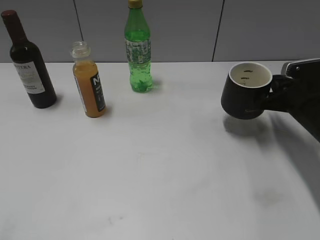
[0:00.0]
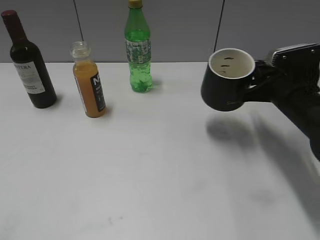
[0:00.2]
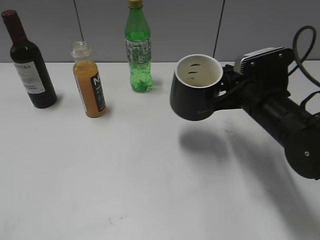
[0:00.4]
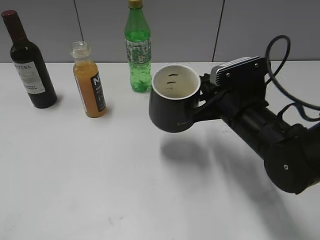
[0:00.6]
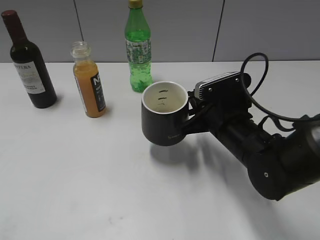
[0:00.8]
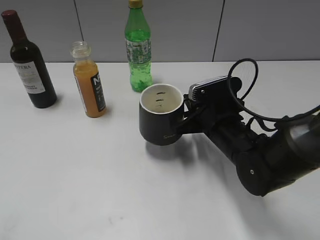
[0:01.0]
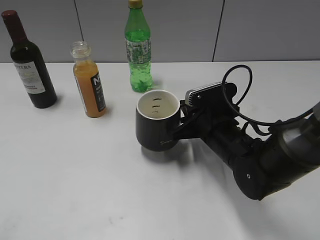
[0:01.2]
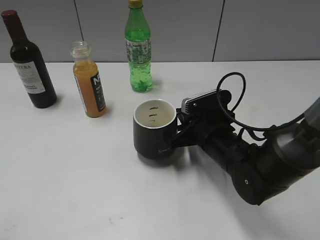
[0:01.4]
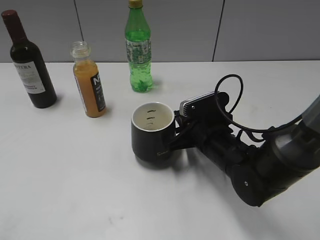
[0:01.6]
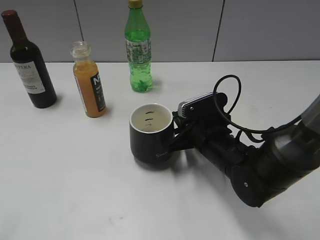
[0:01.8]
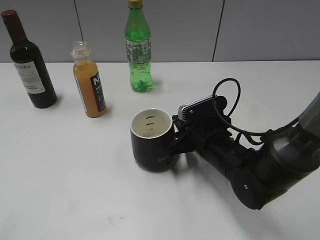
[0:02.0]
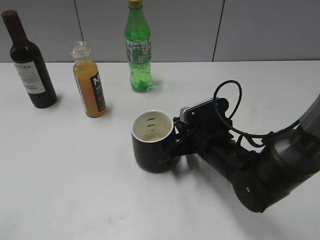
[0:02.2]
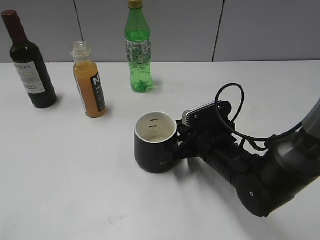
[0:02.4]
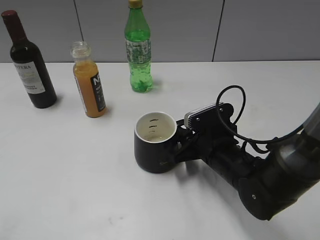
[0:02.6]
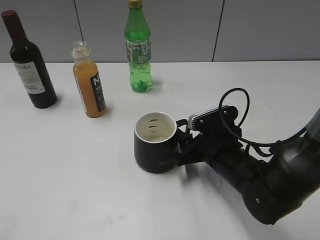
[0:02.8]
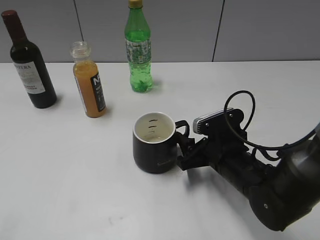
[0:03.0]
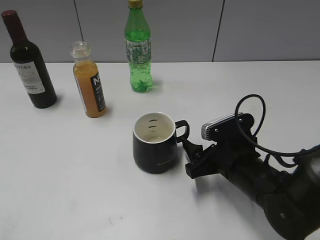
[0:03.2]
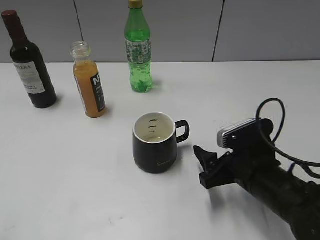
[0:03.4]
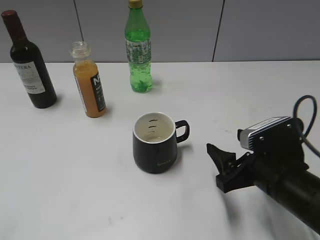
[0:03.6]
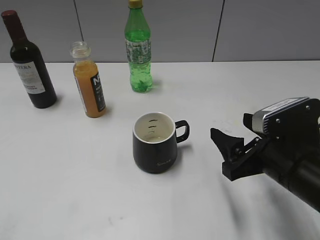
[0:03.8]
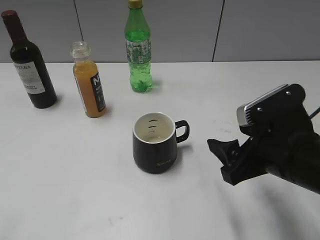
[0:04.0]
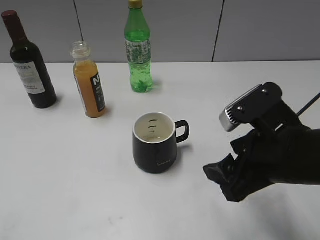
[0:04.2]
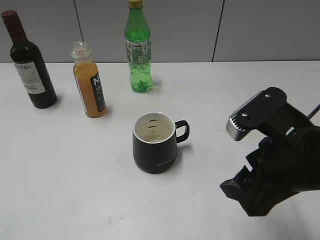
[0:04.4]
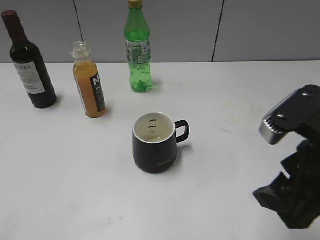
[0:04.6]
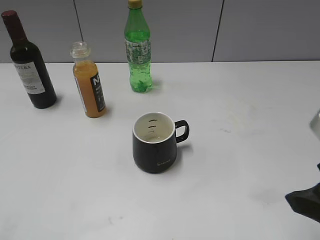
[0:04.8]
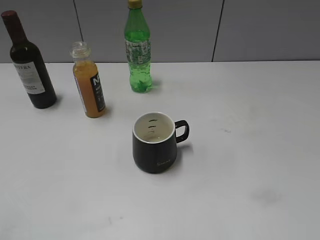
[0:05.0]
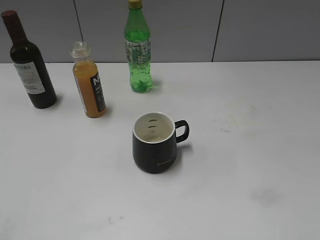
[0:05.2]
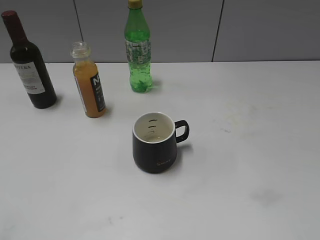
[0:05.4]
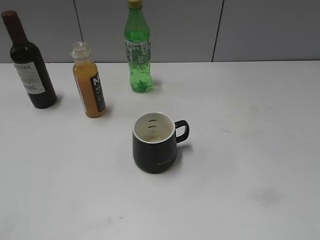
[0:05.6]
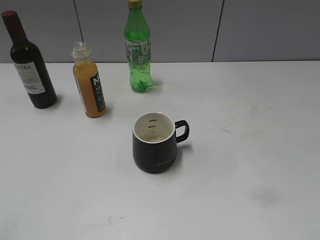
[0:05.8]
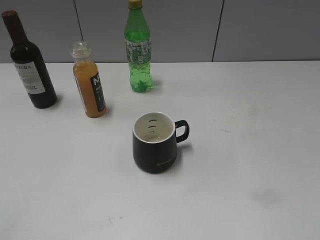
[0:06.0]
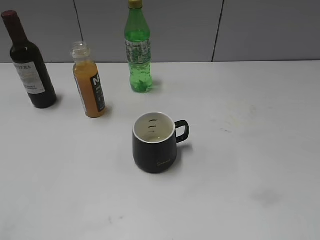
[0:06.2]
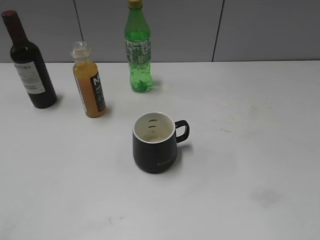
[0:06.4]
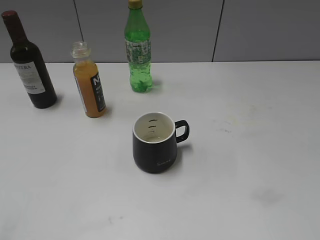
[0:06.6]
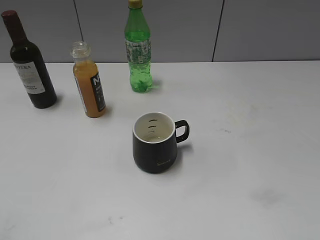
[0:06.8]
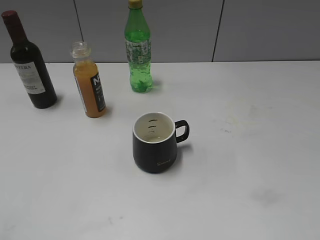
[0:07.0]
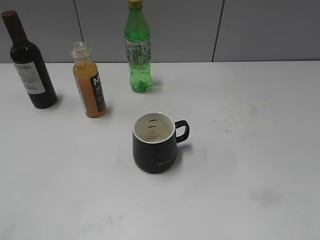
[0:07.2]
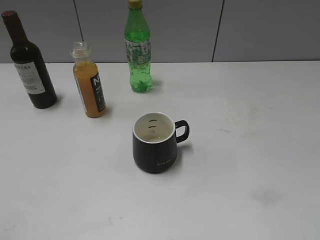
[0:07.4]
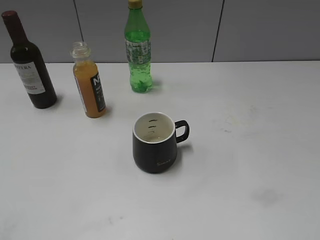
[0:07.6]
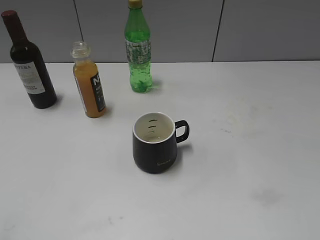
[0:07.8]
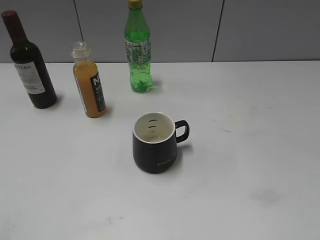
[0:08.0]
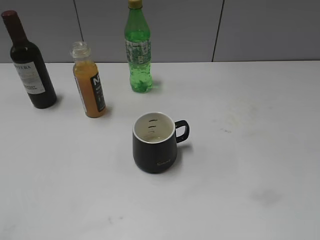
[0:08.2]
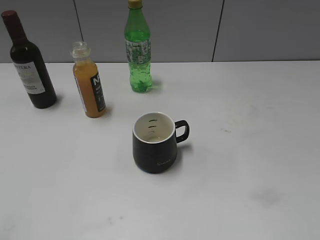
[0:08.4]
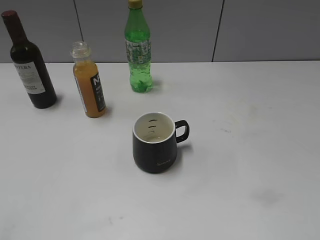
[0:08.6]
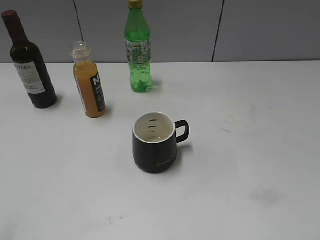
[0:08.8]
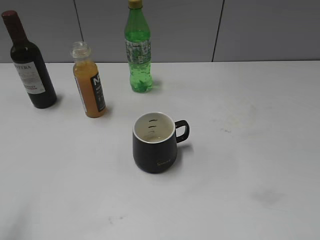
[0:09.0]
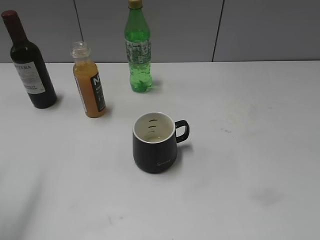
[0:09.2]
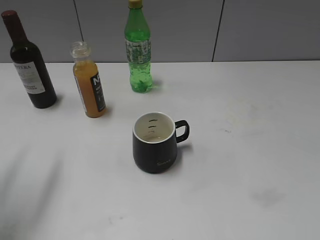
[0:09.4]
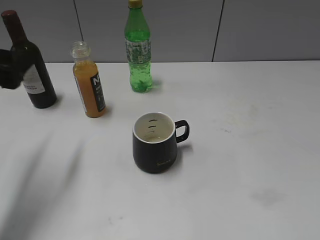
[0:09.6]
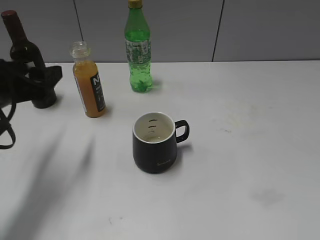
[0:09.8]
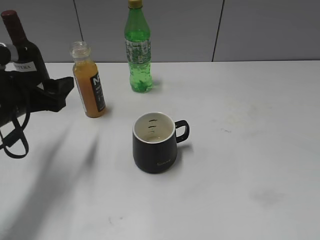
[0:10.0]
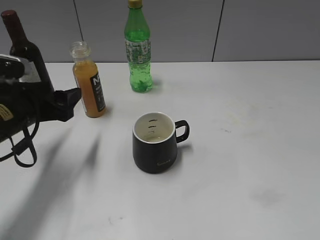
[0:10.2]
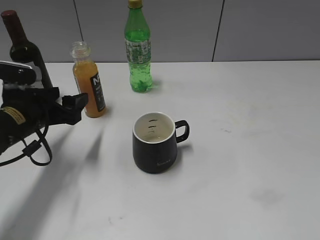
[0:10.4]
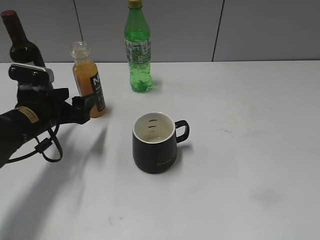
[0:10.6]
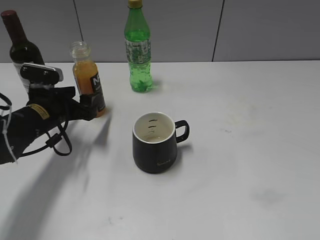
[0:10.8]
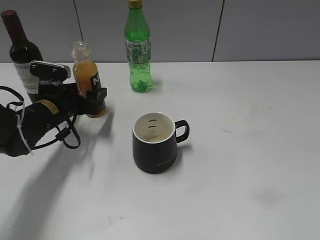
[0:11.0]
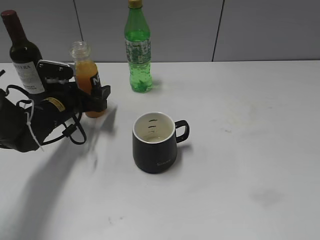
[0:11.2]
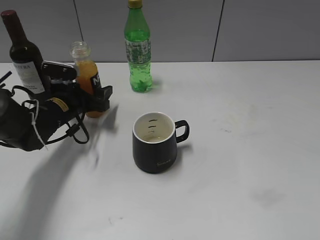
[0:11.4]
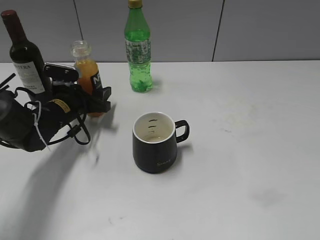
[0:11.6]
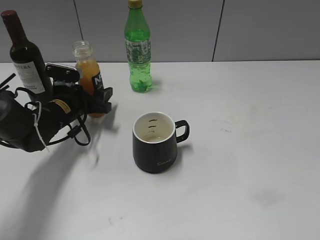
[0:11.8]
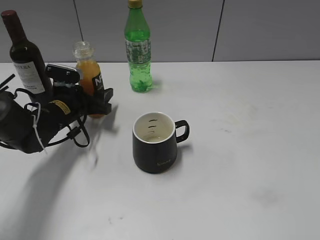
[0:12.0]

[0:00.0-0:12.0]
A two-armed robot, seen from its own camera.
Step, 0:00.0 to 0:03.0: Place the black cup in the center of view with right gripper.
0:00.0 to 0:01.6: The right gripper heads to the left, covering some 15 cm.
0:01.6 to 0:03.0: The right gripper opens up.
0:03.0 to 0:04.4: The right gripper shifts roughly 15 cm upward and backward.
0:04.4 to 0:06.0: The right gripper is displaced backward, to the right and upward by approximately 20 cm.
0:06.0 to 0:07.6: The two grippers keep their place.
0:09.0 to 0:10.4: The left gripper goes some 30 cm forward, downward and to the right.
0:10.4 to 0:12.0: The left gripper heads forward and downward, covering some 10 cm, and closes.

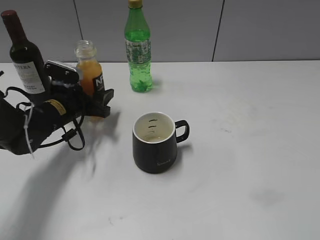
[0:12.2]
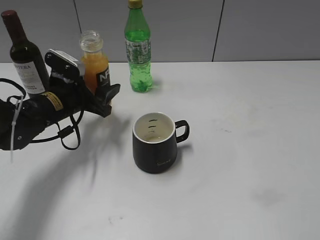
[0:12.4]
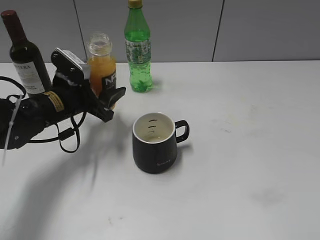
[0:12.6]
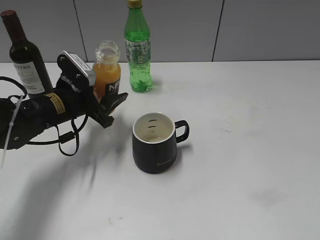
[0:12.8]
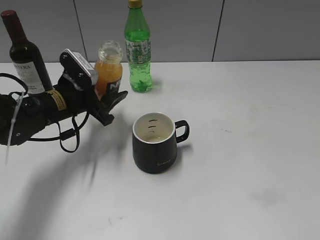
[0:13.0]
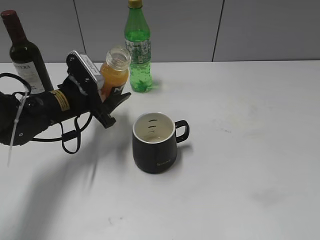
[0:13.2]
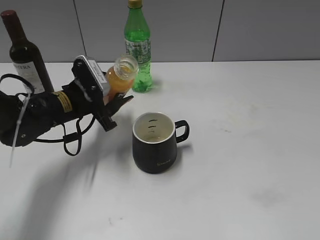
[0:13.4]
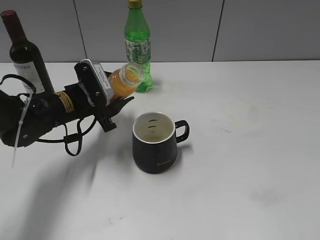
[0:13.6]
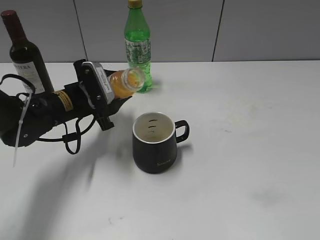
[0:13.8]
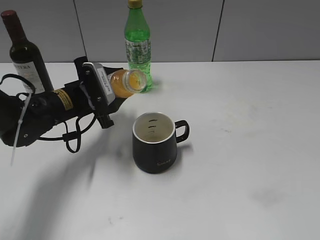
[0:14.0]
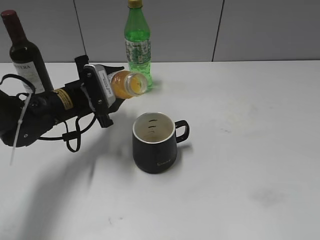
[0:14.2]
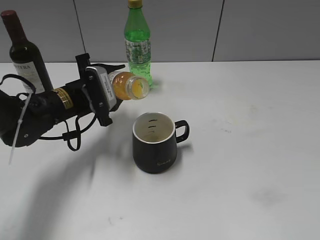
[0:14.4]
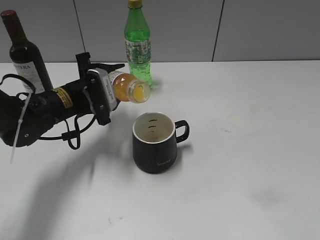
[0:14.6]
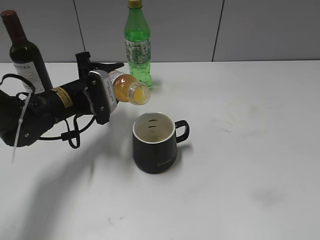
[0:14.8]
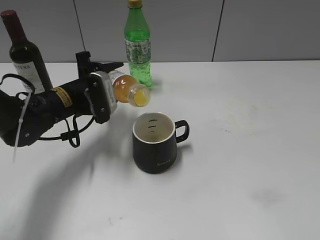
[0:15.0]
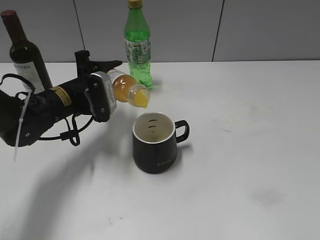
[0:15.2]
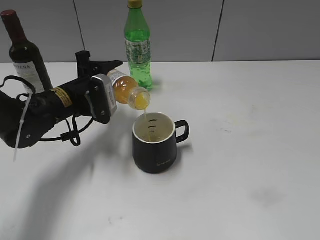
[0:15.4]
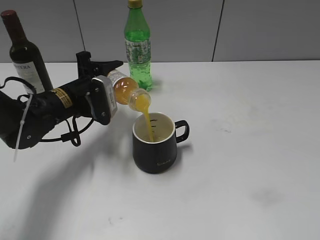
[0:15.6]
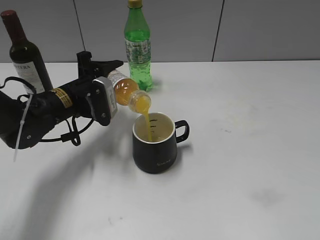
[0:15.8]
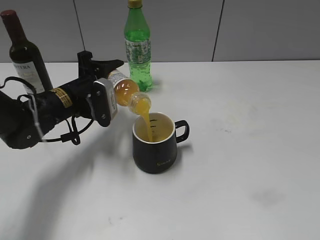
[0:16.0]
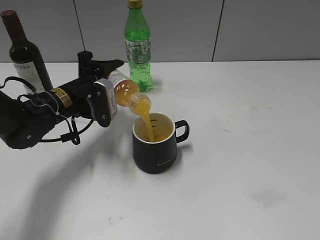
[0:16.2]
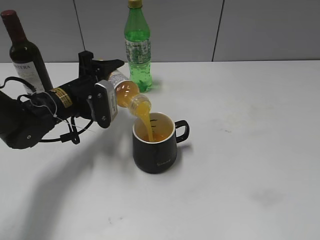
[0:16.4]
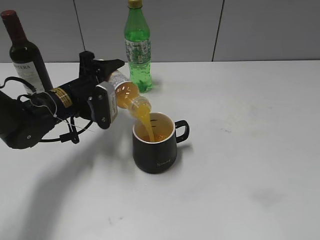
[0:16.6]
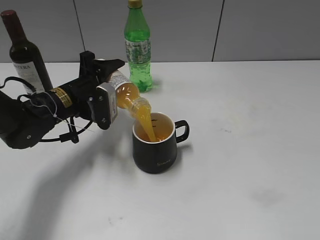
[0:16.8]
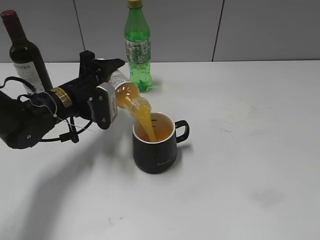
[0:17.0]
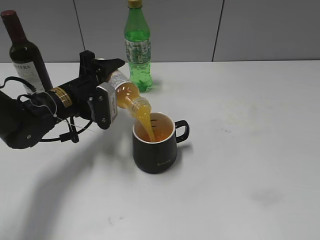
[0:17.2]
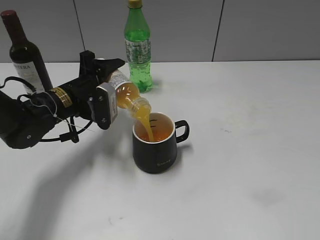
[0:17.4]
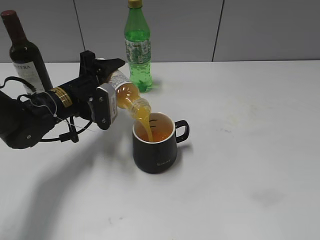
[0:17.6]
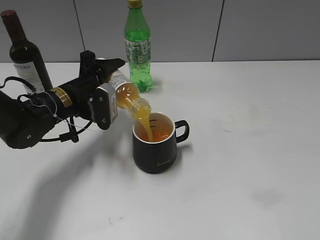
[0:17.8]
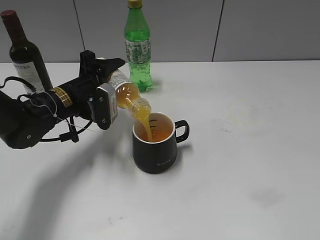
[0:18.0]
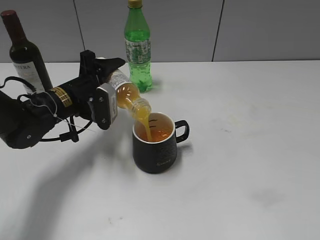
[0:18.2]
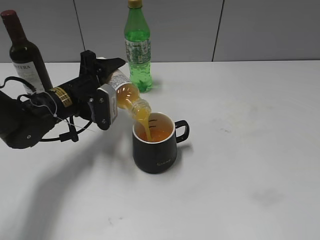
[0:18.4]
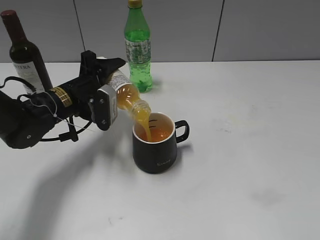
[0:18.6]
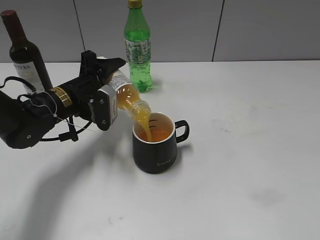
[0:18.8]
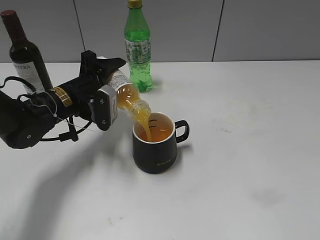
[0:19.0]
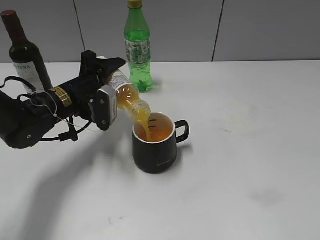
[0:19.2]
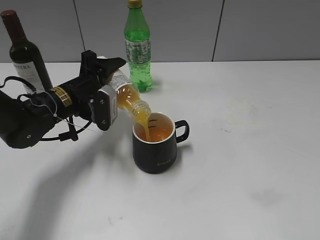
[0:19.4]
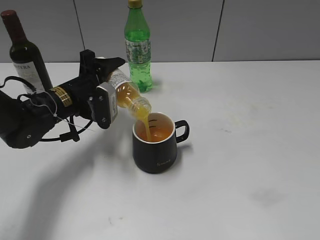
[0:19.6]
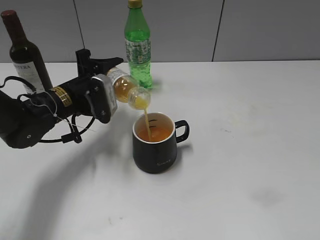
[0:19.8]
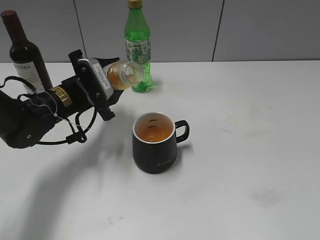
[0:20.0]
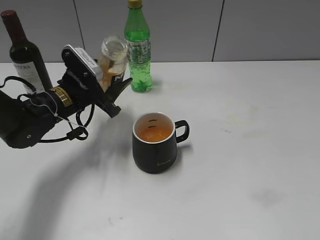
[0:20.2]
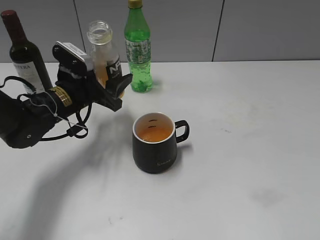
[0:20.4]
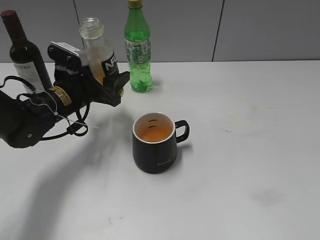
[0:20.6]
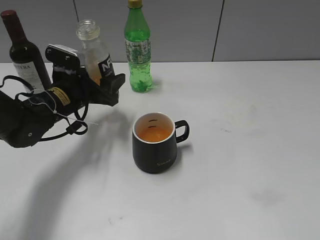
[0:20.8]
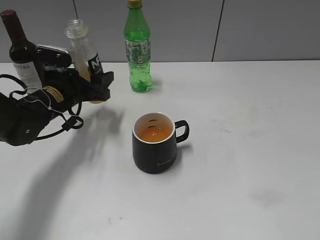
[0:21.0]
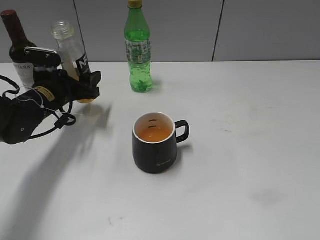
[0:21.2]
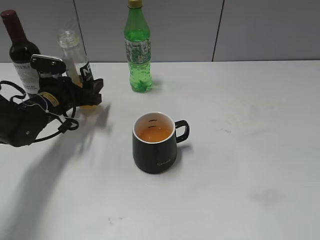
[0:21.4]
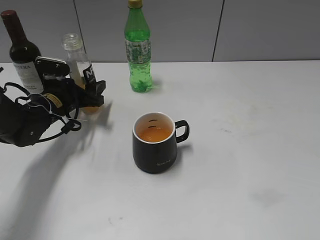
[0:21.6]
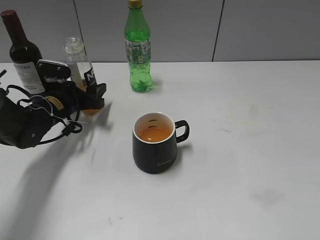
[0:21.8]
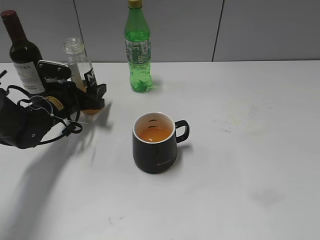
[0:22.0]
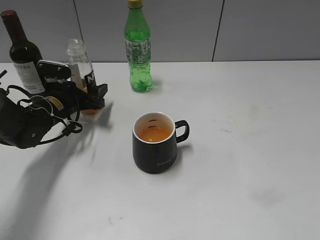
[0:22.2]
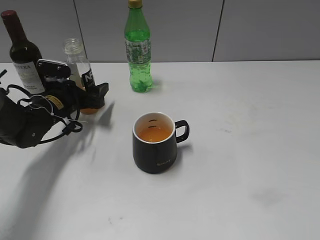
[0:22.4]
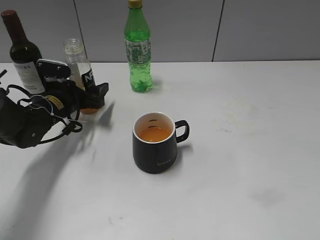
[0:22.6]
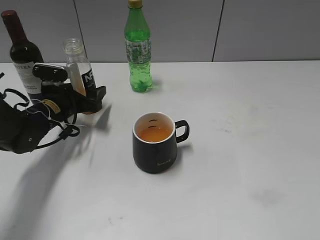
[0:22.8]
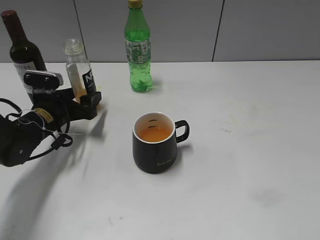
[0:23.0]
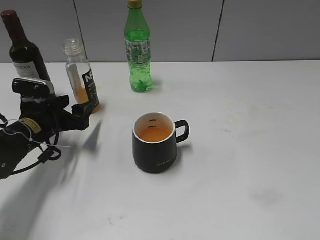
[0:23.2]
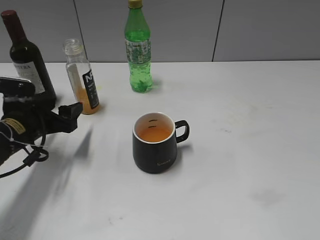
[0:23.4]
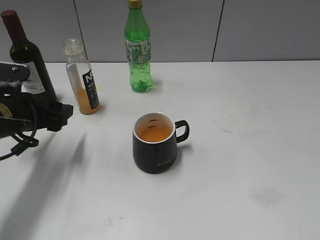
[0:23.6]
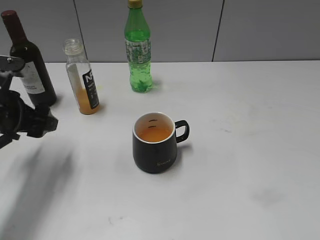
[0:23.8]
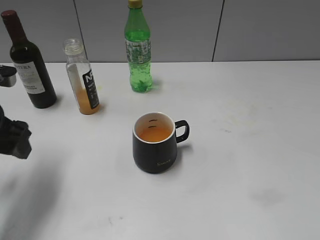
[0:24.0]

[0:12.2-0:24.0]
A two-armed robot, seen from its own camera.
Step, 0:12.2 to 0:19.8: Pour the orange juice from bottle to cup with left gripper.
Step, 0:20.0 to 0:22.6: Place the orange juice bottle on the table with left gripper.
0:12.2 to 0:13.6: The left gripper changes place by approximately 5 cm.
0:15.2 to 0:16.6: There are only small adjustments of the grippers.
0:16.6 to 0:18.2: Both grippers stay put.
0:18.2 to 0:19.6: Both grippers stay put.
0:21.0 to 0:22.6: The left gripper shifts by roughly 5 cm, and opens.
0:22.6 to 0:24.0: The left gripper heads backward and upward, covering roughly 20 cm.
